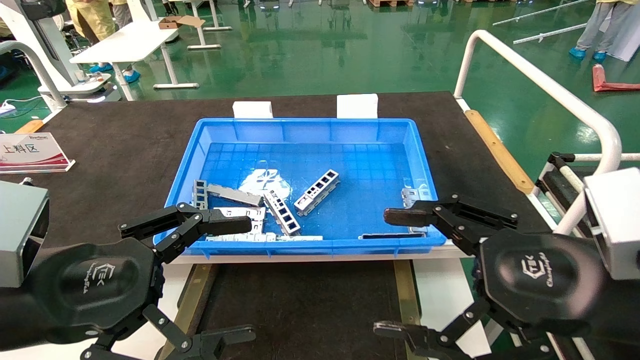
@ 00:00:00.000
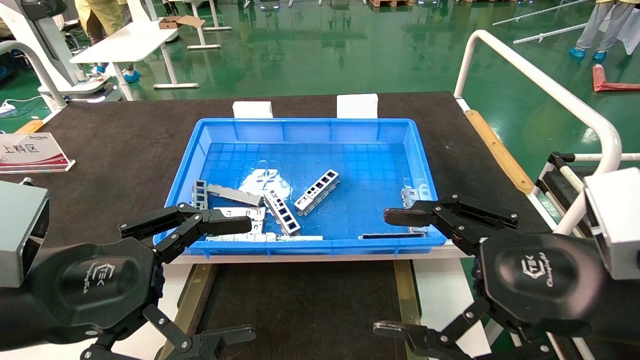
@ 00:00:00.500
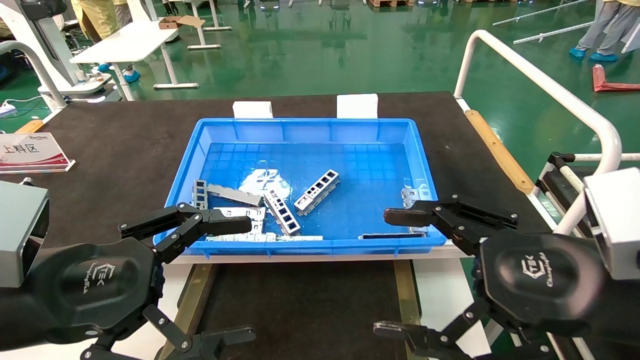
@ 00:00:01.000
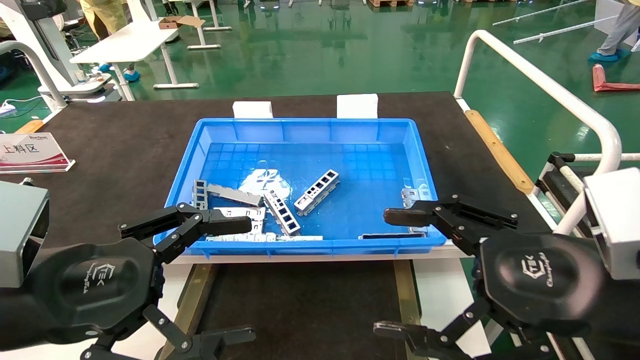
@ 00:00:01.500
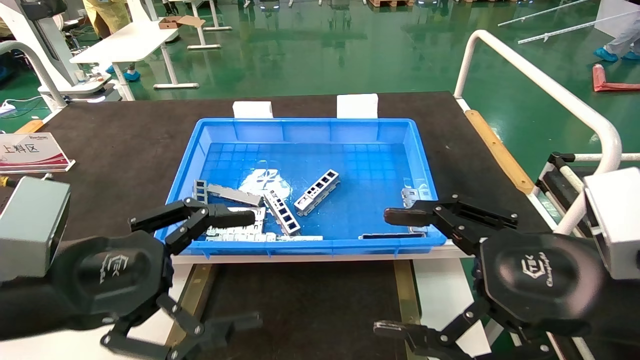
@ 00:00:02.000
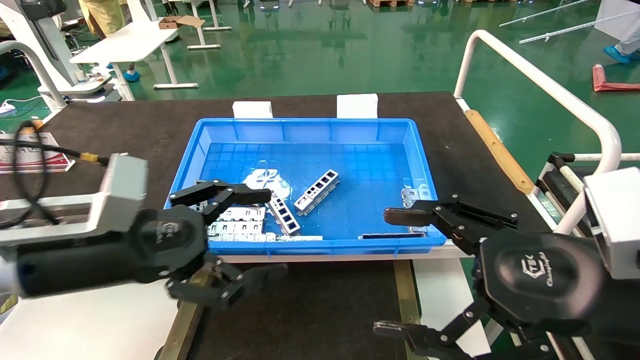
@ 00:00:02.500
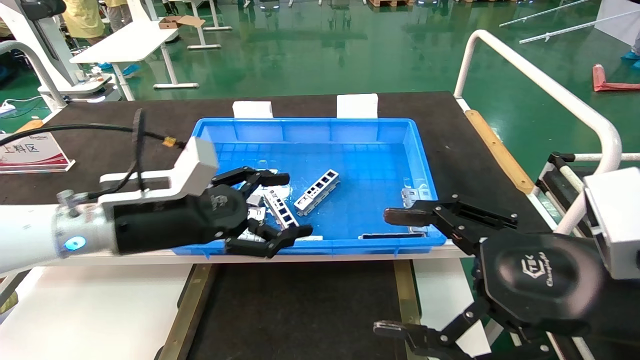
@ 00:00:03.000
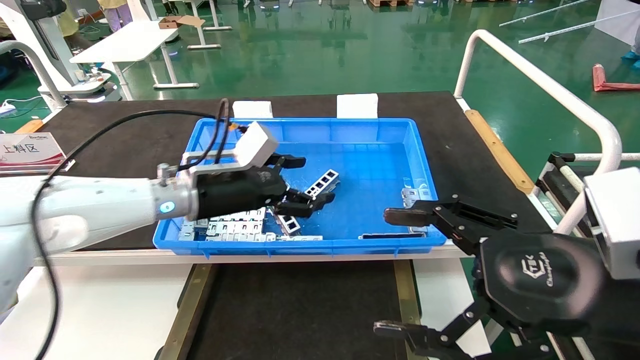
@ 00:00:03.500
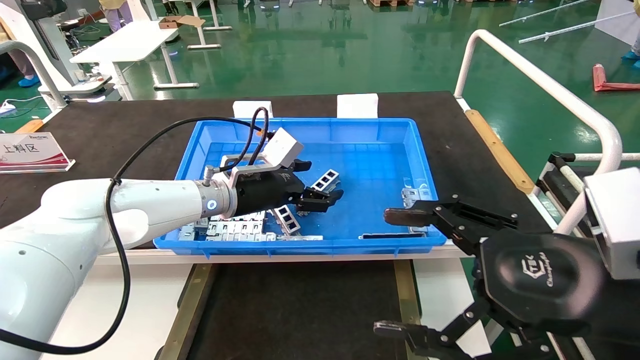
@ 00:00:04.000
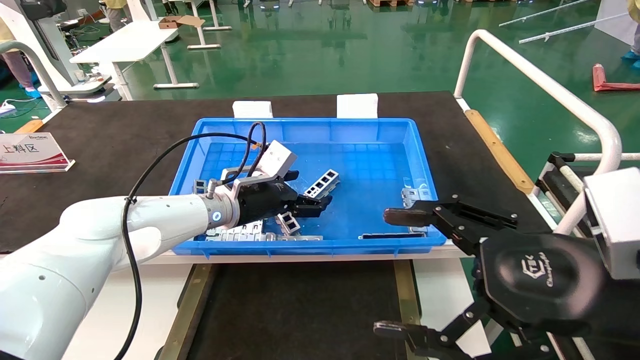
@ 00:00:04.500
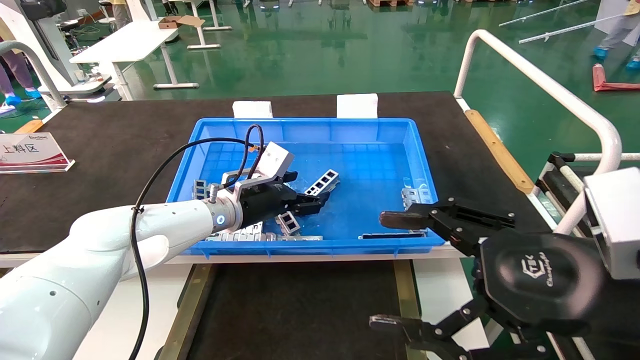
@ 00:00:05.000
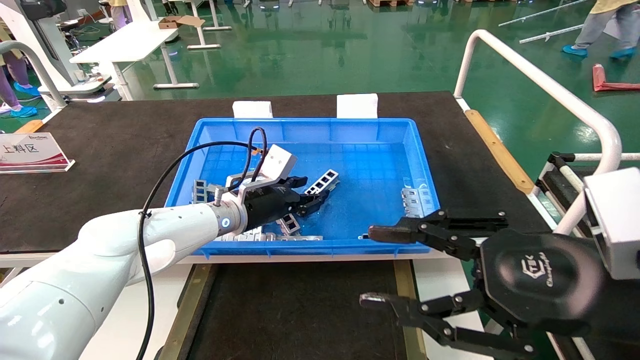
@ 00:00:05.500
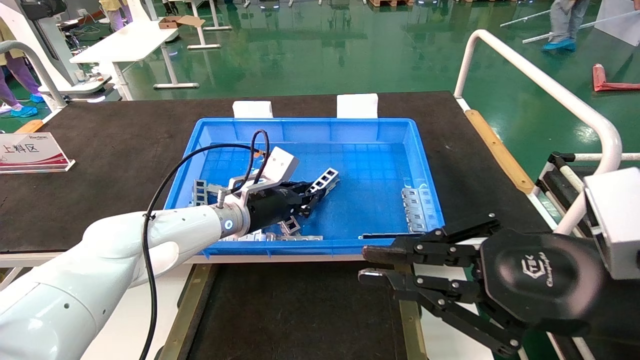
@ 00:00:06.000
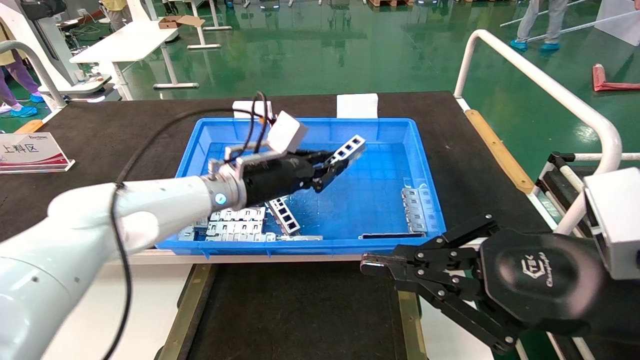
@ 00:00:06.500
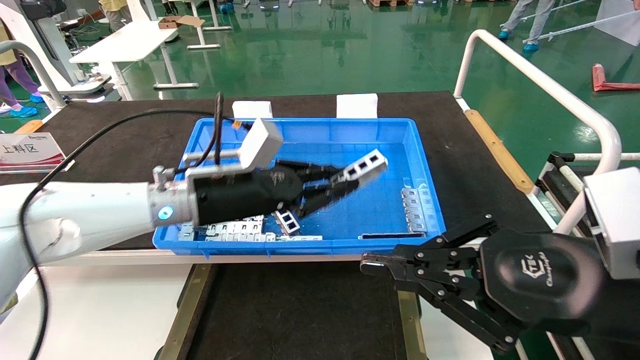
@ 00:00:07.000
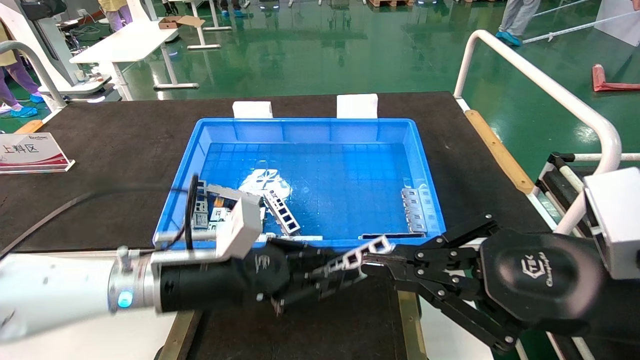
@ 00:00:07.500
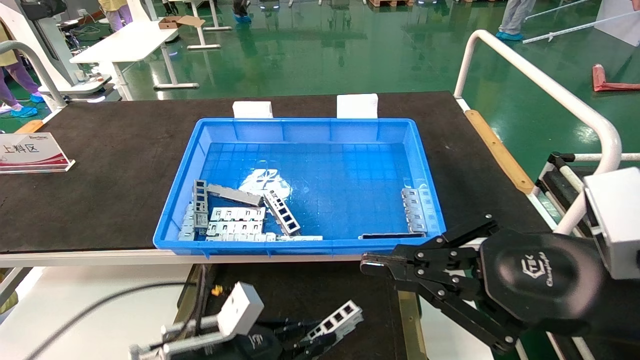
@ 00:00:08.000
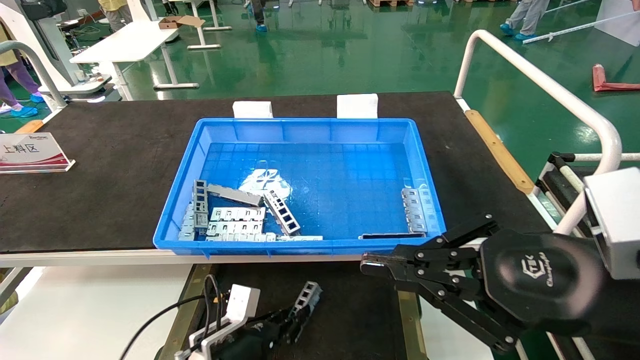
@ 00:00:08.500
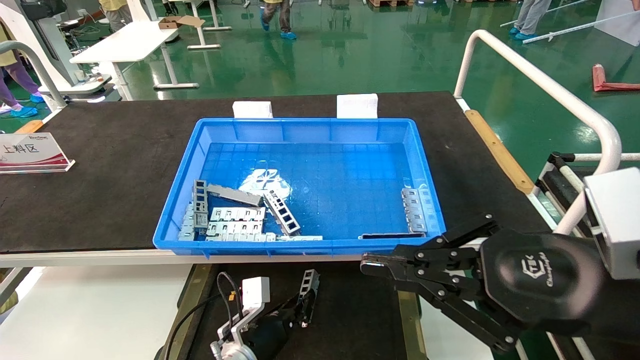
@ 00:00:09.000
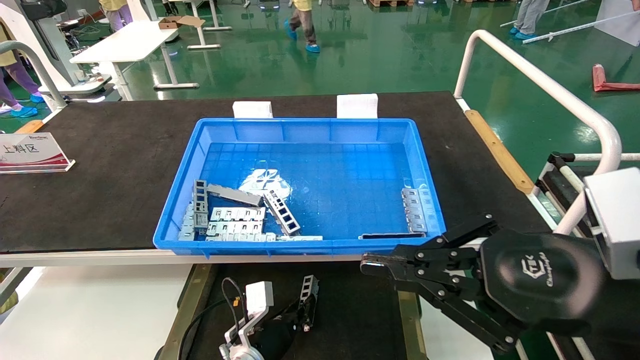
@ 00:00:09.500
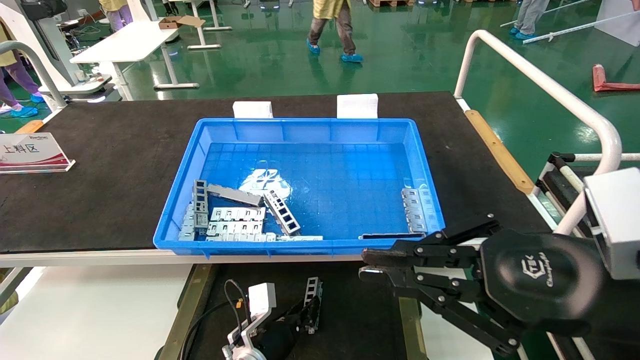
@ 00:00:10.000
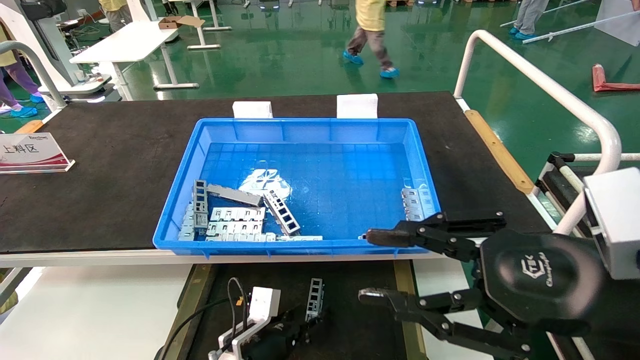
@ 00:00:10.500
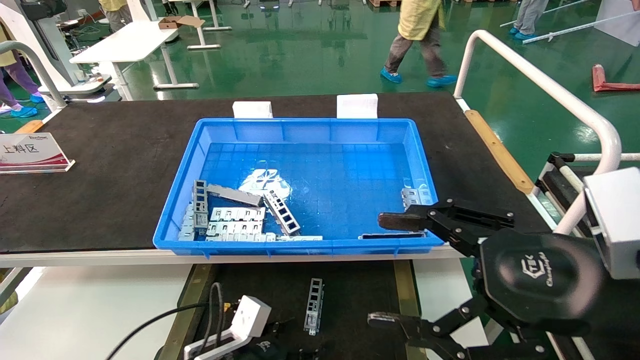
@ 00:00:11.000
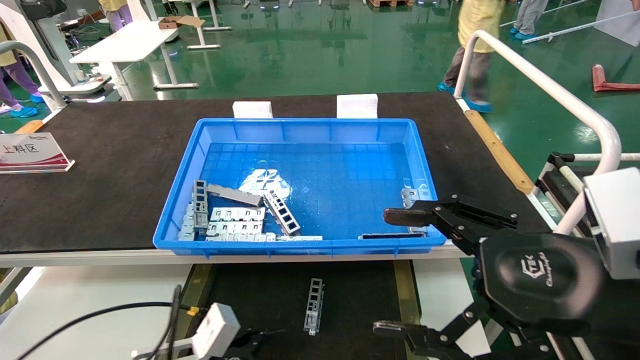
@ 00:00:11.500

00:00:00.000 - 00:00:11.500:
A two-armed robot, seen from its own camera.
Task of the whole recording: Grasp the part with one hand and place it on the black container.
Step, 00:00:02.000 - 00:00:05.500: Pick up the front USB bracket from the feeding area.
Step, 00:00:06.000 - 00:00:10.000: Place the front USB bracket into the box.
00:00:00.000 - 00:00:02.000: The grippers make only small movements.
00:00:02.000 - 00:00:04.000: The left gripper heads forward and to the right, covering approximately 30 cm.
00:00:04.000 - 00:00:06.000: The left gripper closes its fingers. Meanwhile the right gripper closes.
00:00:06.000 - 00:00:07.500: The left gripper heads backward, covering about 15 cm.
00:00:07.500 - 00:00:09.500: The left gripper is displaced downward by roughly 20 cm.
00:00:09.500 - 00:00:11.500: The left gripper goes approximately 20 cm backward, to the left and upward, and opens; the right gripper opens its fingers.

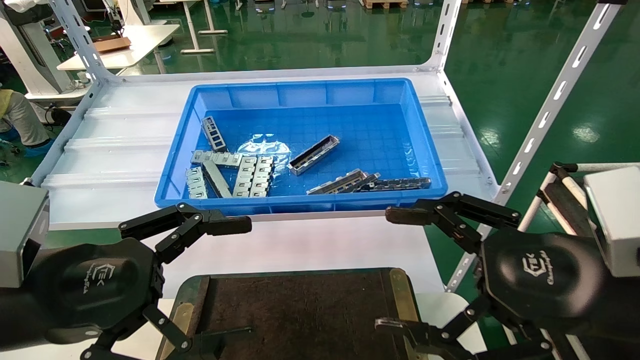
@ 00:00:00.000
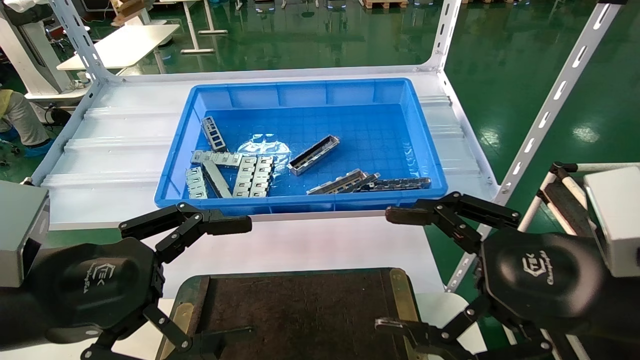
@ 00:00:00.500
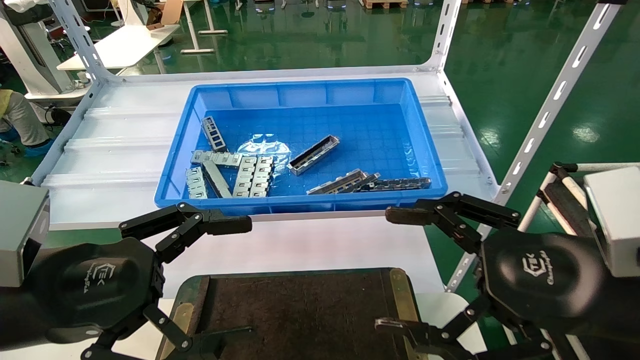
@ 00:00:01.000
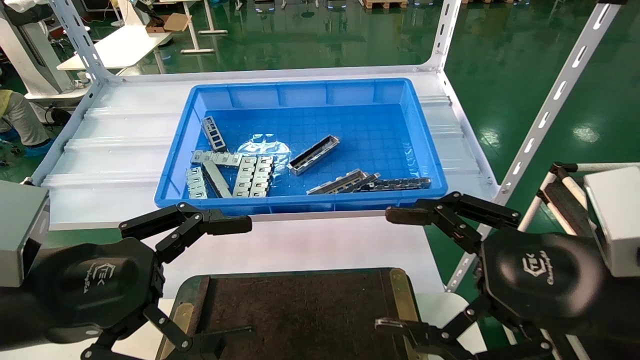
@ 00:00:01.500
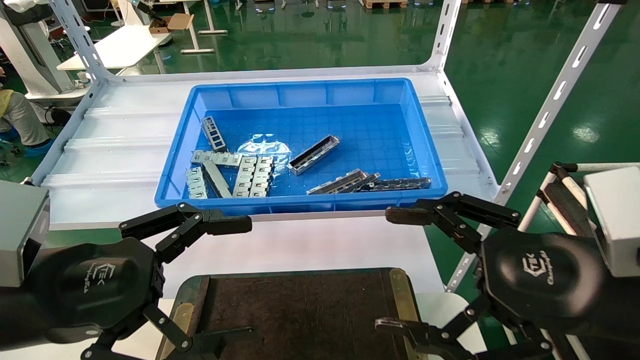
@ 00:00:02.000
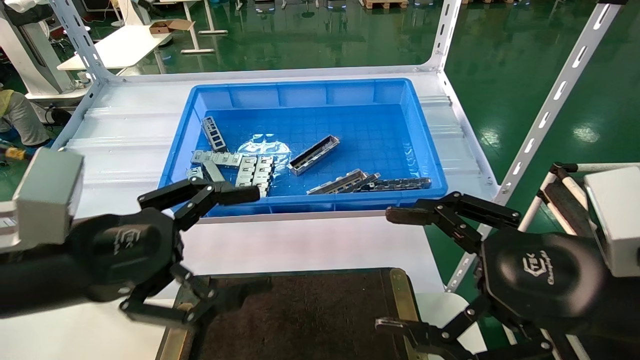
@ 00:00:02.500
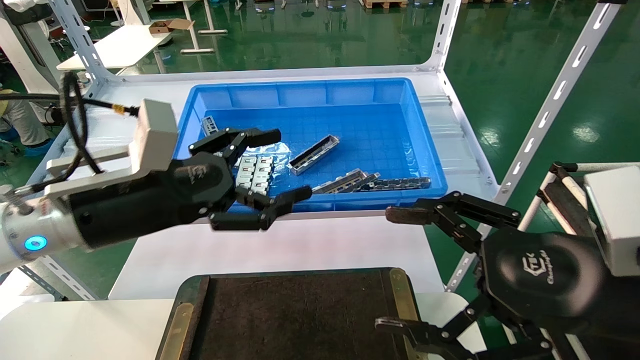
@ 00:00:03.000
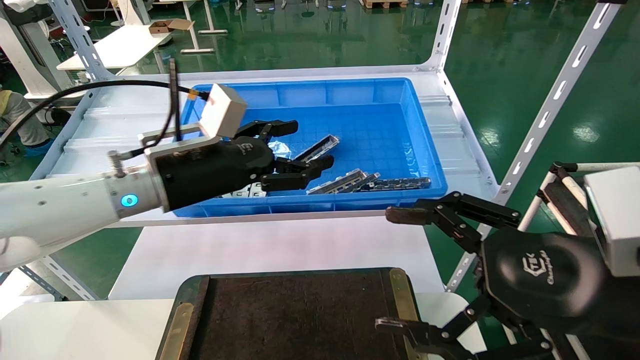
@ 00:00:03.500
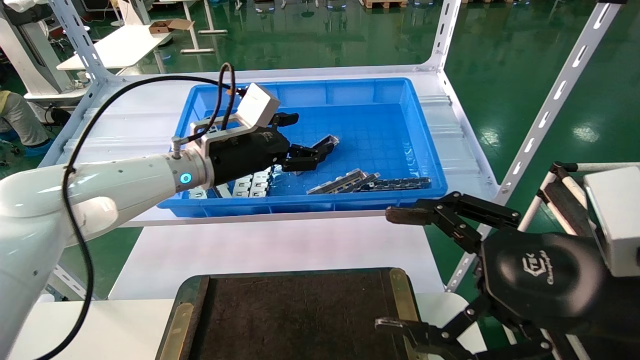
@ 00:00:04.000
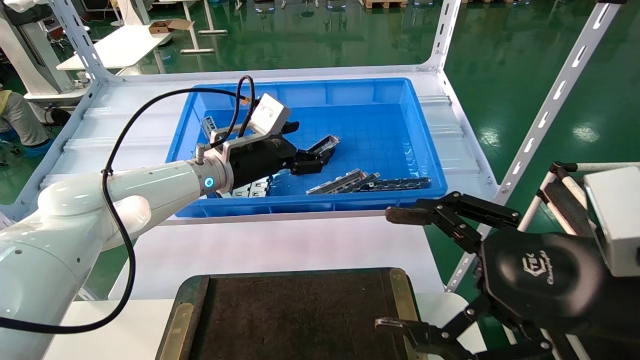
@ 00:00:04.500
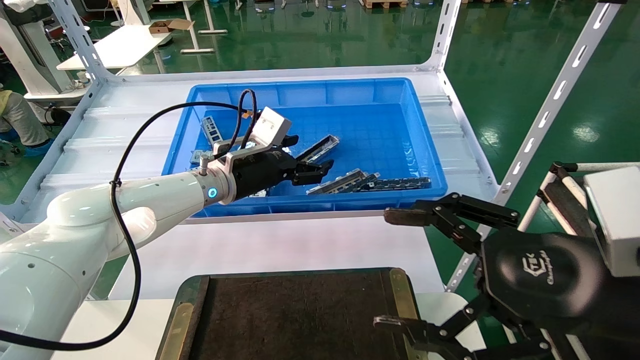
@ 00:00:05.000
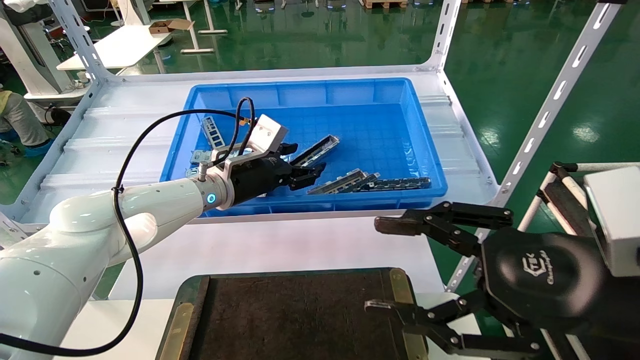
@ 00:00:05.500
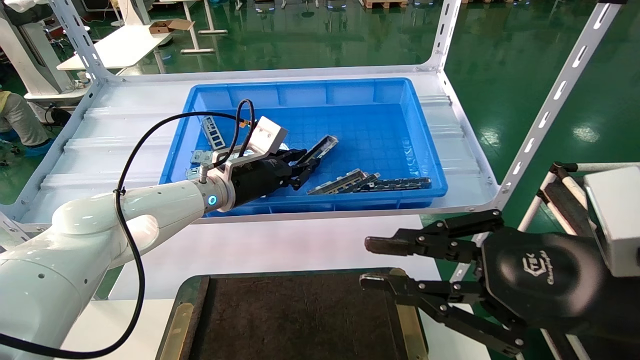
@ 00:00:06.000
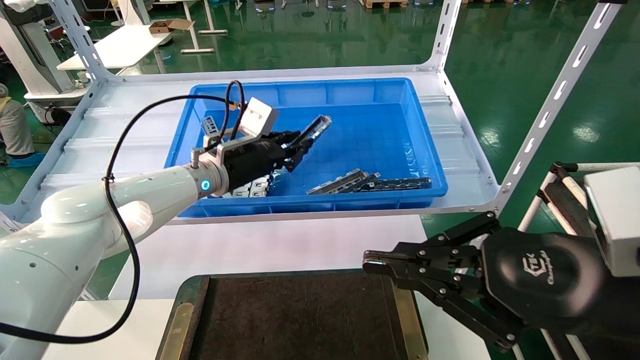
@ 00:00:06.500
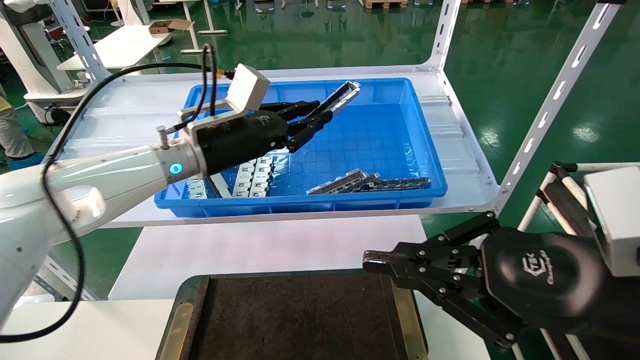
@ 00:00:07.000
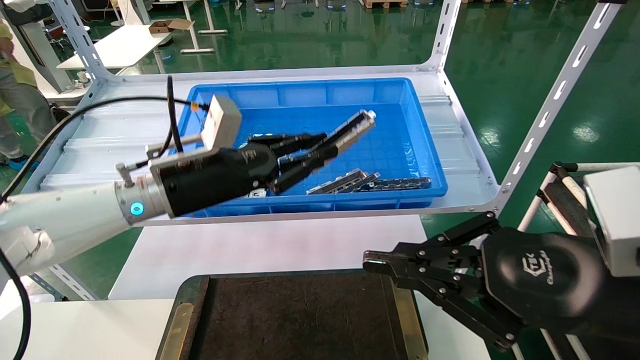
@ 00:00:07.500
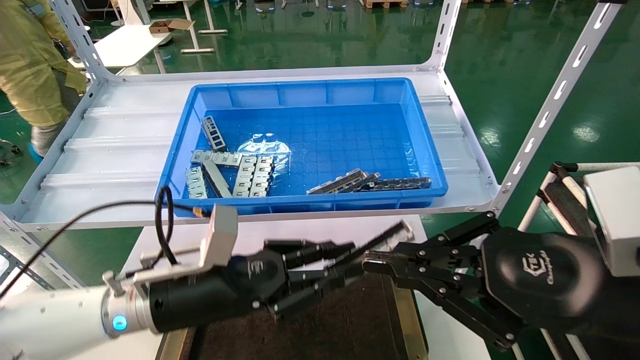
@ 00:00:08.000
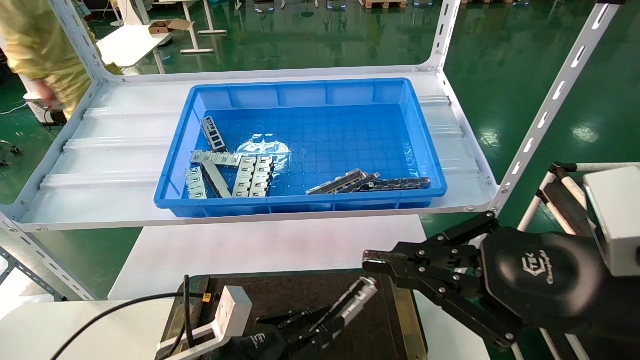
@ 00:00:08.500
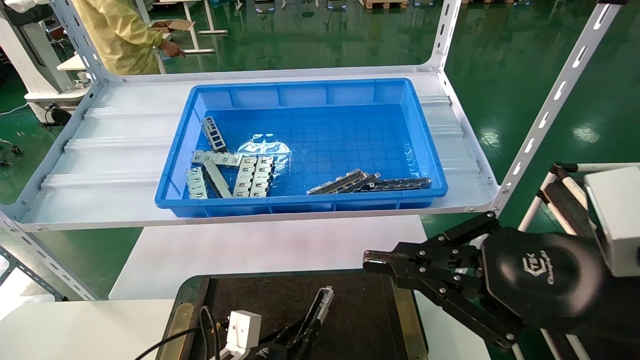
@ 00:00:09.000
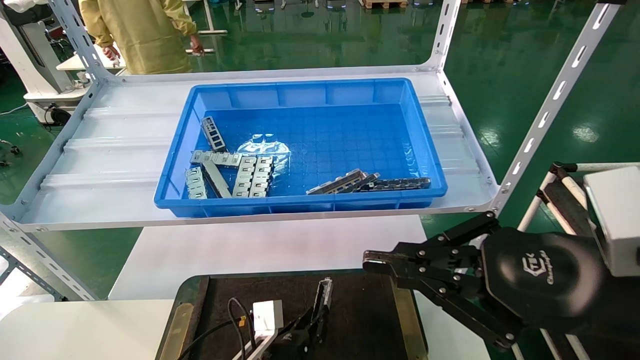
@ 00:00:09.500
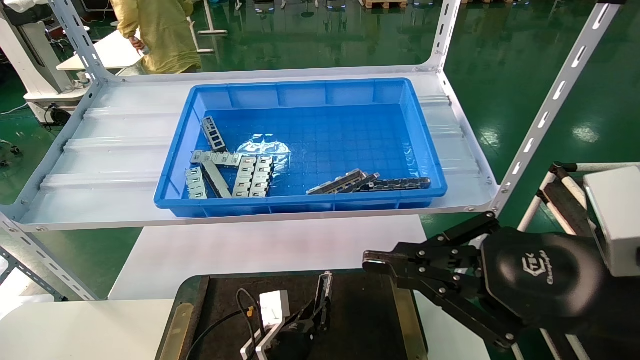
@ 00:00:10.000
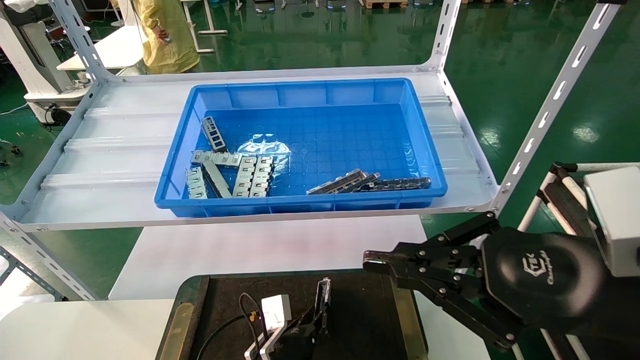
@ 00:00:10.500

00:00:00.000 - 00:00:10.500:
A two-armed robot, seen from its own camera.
Task of the whole recording: Grasp the part with one hand and place it on the black container.
Step, 00:00:02.500 - 00:00:07.000: Pick up the front USB bracket from the feeding area.
00:00:00.000 - 00:00:02.000: The two grippers keep their place.
00:00:02.000 - 00:00:04.000: The left gripper heads forward and to the right, covering roughly 30 cm.
00:00:04.000 - 00:00:06.500: The right gripper closes up. Meanwhile the left gripper closes up.
00:00:06.500 - 00:00:08.500: The left gripper is displaced downward and backward by roughly 30 cm.
00:00:08.500 - 00:00:10.500: The left gripper travels downward, to the right and forward by about 15 cm.
